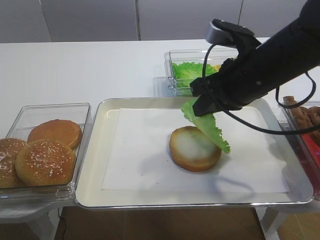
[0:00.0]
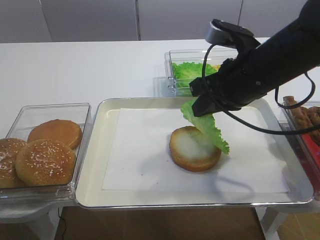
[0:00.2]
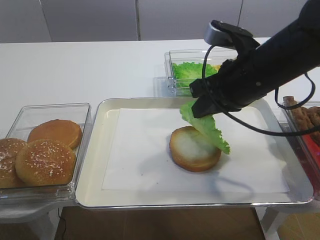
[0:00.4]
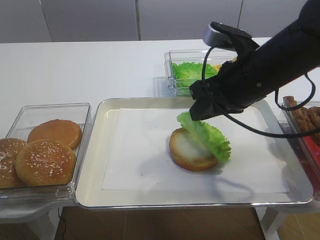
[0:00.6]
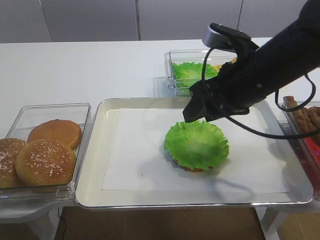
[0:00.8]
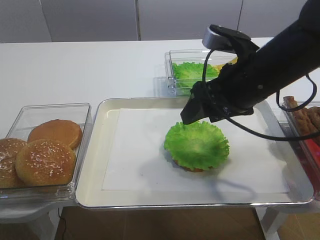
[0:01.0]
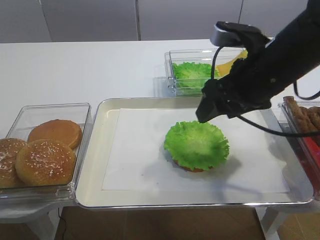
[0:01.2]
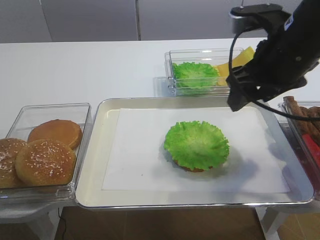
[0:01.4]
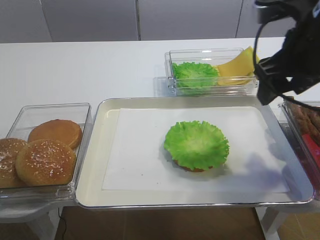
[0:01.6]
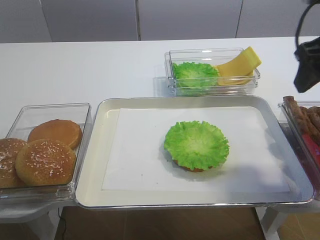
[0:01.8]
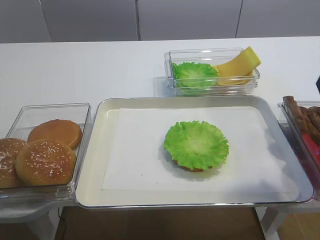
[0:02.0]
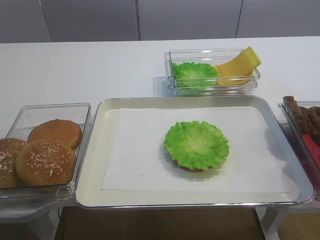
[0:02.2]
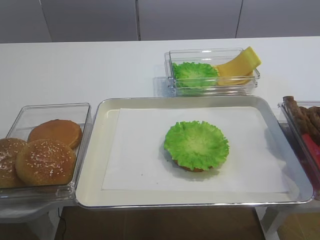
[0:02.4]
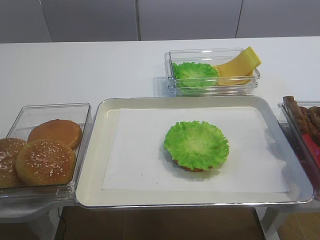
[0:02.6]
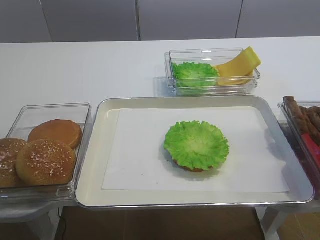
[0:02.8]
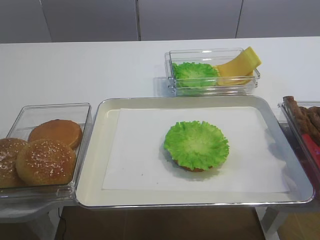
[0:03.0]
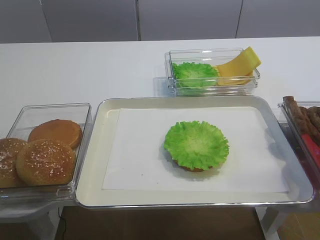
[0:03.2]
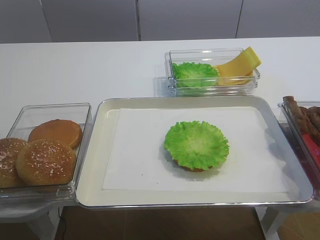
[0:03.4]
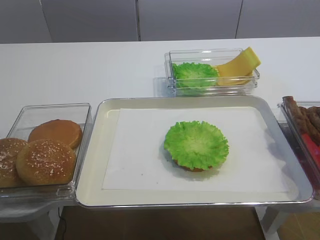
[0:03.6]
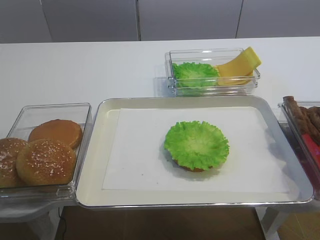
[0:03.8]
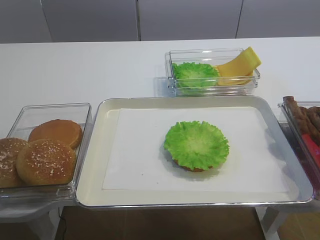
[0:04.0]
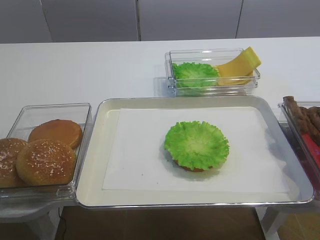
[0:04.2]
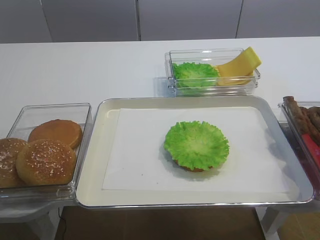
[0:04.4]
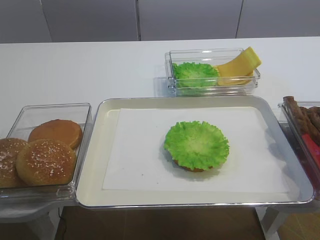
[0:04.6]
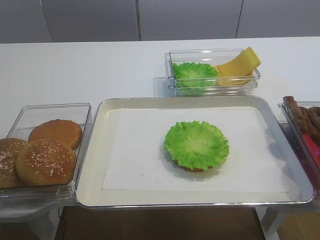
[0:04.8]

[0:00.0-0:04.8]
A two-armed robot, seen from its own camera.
0.0 to 1.6 s: The right gripper shifts about 10 cm to the right and upward, and opens.
1.6 to 3.2 s: The right gripper moves backward, about 25 cm.

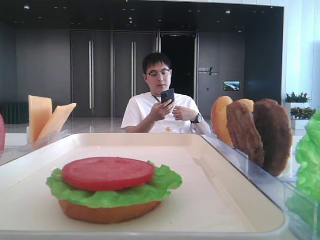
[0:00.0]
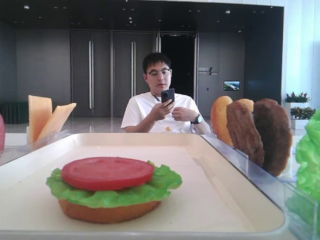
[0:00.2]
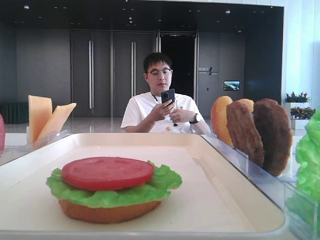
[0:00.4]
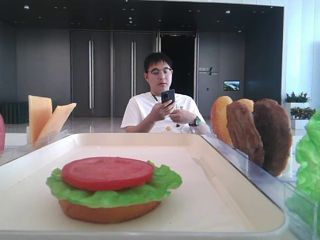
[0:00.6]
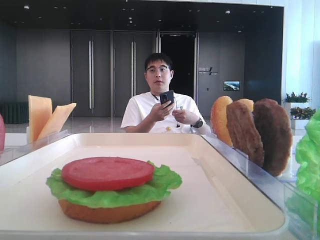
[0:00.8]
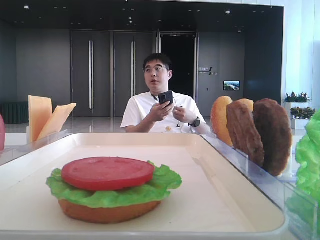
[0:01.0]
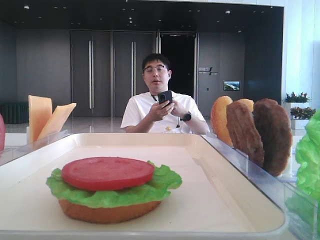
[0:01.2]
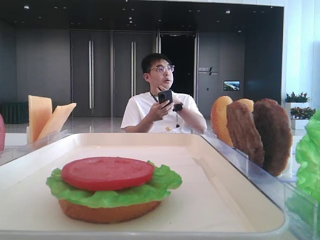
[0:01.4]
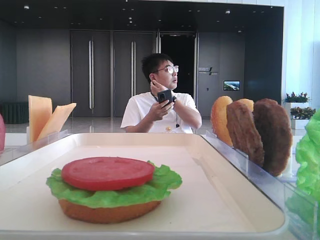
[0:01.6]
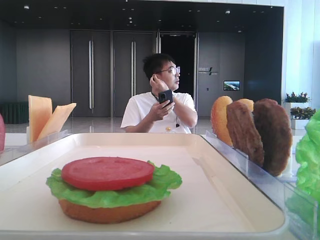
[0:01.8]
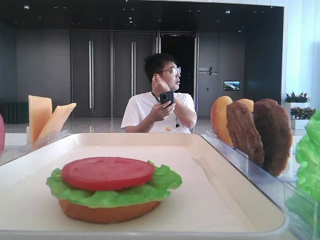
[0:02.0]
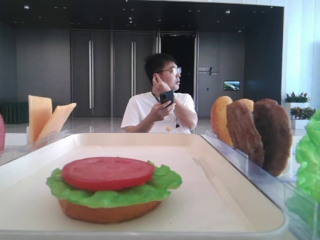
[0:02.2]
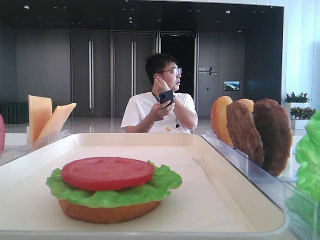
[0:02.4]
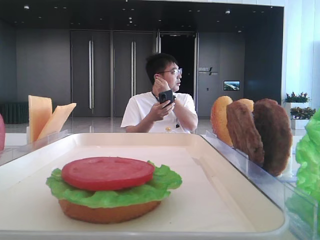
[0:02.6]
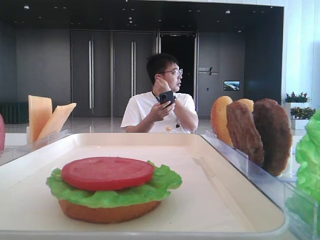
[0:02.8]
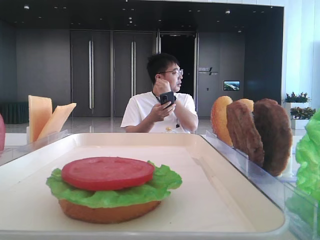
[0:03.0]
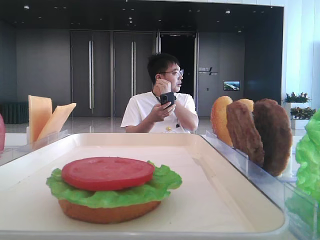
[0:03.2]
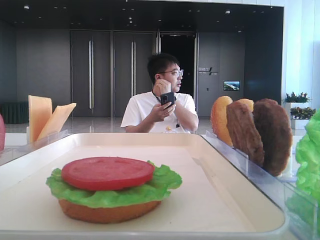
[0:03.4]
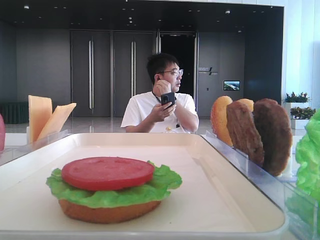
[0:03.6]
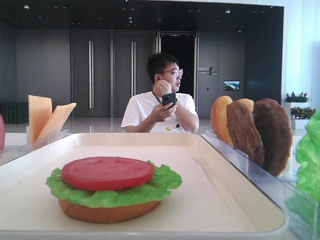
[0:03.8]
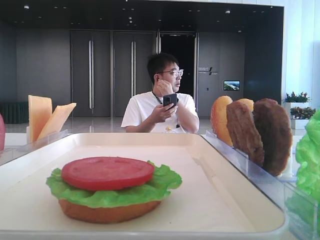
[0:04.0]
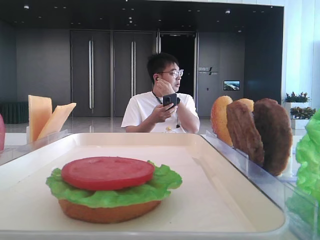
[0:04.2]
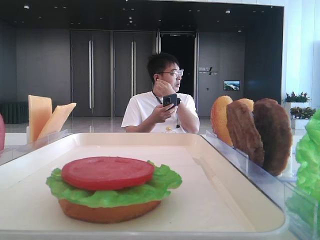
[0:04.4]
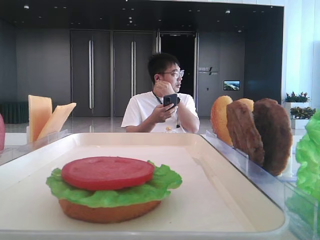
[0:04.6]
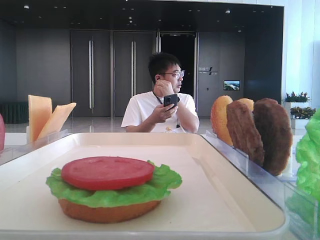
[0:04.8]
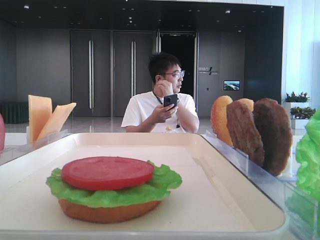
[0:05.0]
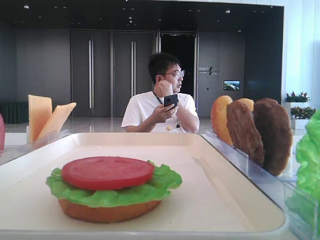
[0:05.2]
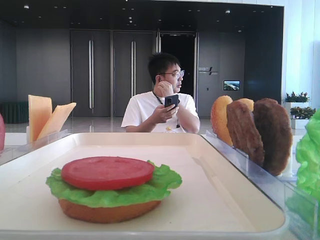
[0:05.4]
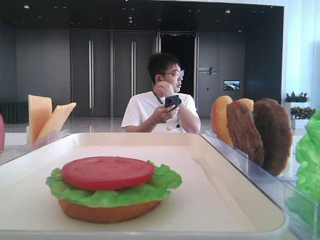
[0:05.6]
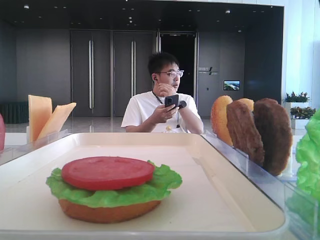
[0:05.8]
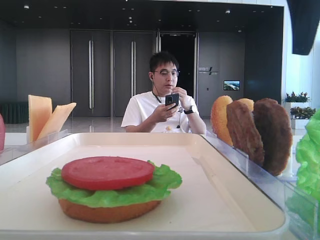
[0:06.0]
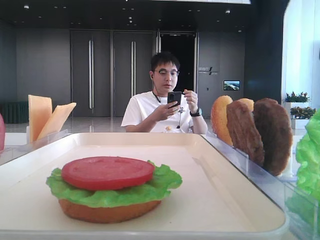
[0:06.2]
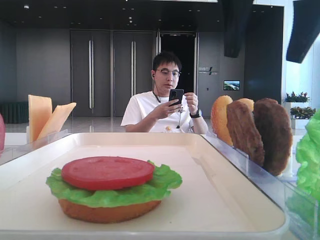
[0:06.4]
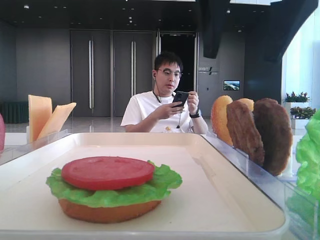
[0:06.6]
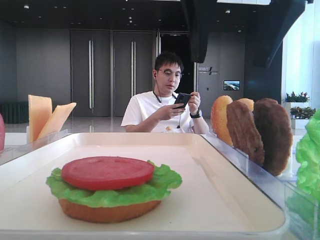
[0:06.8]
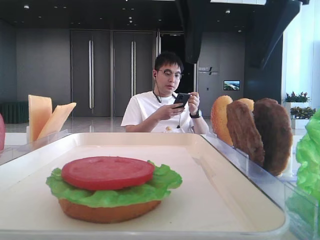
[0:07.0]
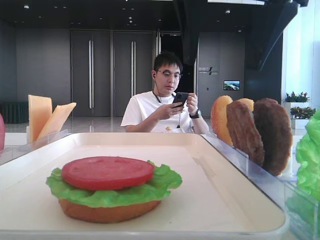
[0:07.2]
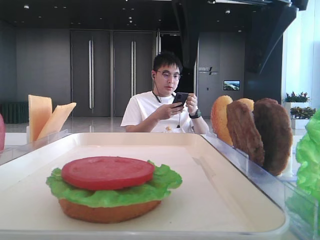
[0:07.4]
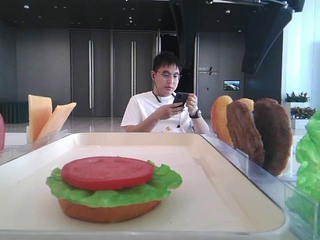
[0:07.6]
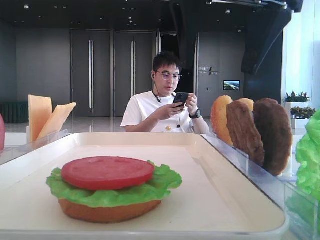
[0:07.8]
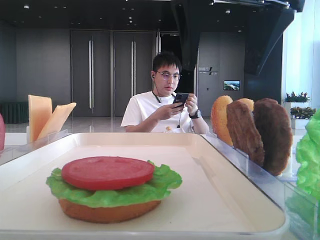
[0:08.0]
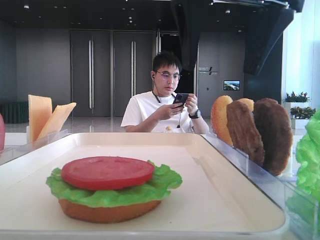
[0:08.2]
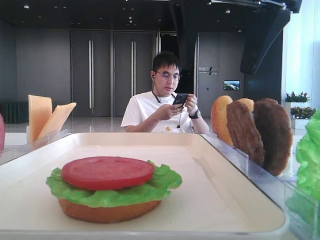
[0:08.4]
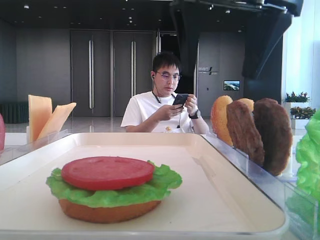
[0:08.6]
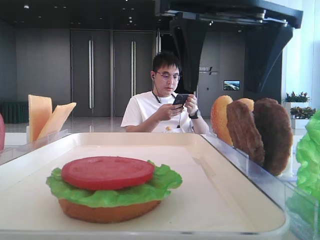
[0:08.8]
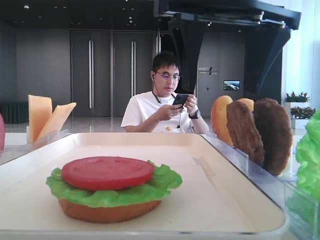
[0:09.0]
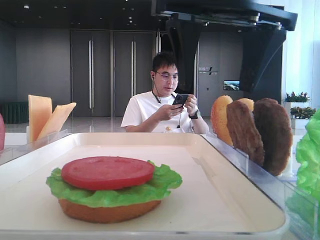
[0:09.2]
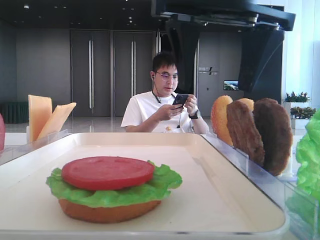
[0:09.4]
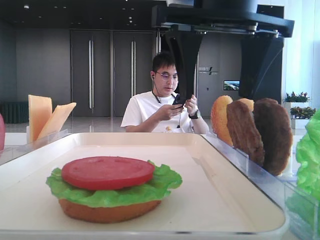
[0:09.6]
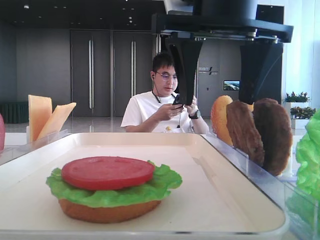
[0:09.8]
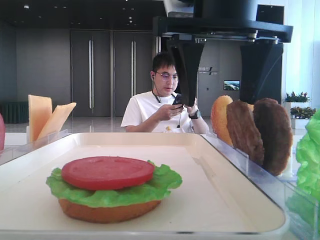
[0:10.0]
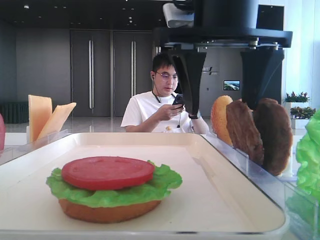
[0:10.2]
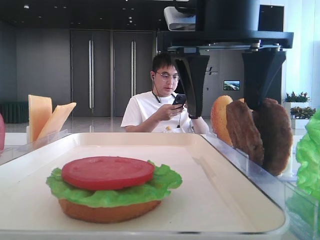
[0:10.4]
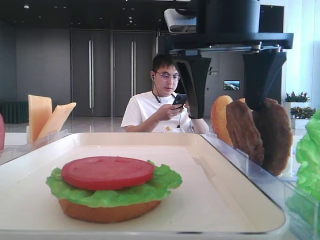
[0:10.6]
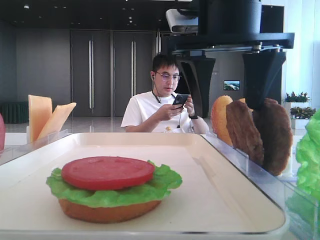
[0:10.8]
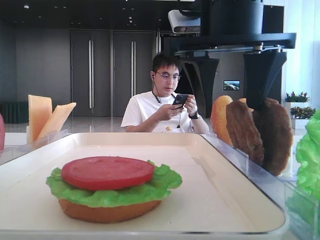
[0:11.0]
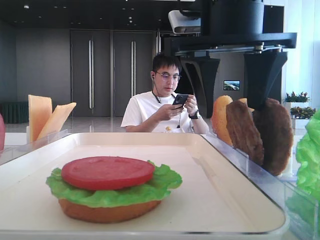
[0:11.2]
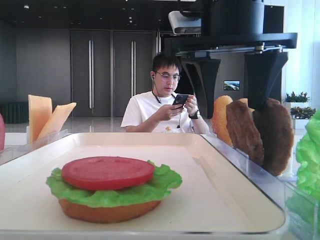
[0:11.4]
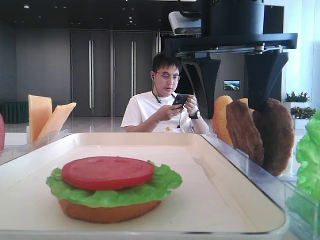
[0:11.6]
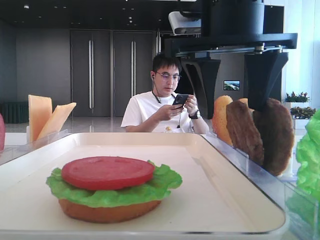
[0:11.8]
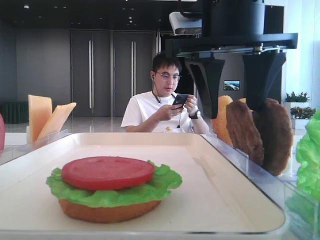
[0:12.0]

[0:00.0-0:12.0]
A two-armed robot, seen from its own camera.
1.6 to 3.0 s: The two grippers keep their place.
3.0 to 4.4 s: The right gripper shifts some 20 cm forward.
4.4 to 6.0 s: The right gripper moves to the left and forward, about 10 cm.
6.0 to 7.6 s: The right gripper shifts about 10 cm to the left.
7.6 to 10.4 s: The grippers move only a little.
10.4 to 12.0 s: The two grippers keep their place.

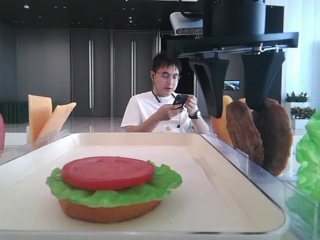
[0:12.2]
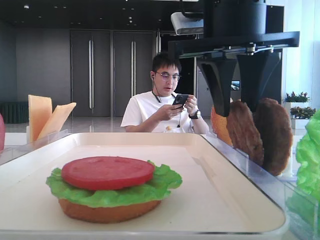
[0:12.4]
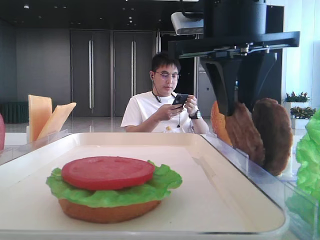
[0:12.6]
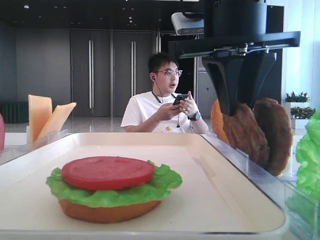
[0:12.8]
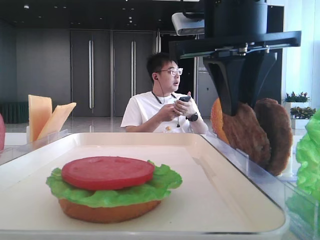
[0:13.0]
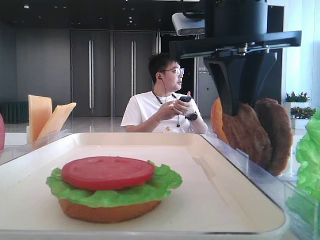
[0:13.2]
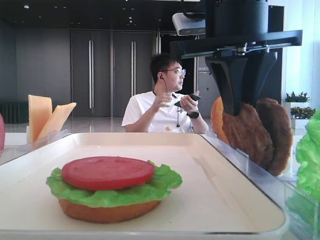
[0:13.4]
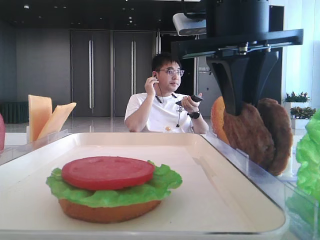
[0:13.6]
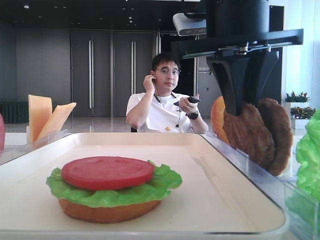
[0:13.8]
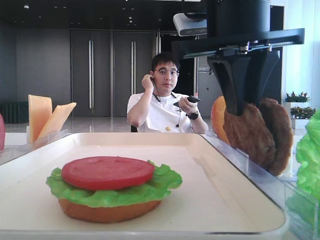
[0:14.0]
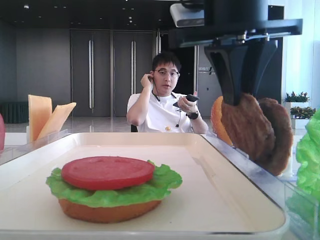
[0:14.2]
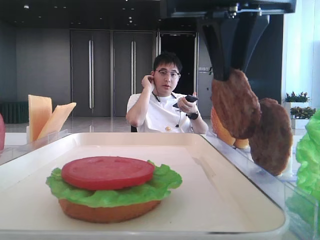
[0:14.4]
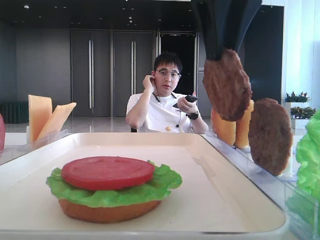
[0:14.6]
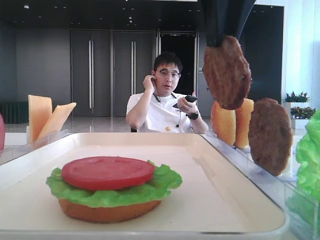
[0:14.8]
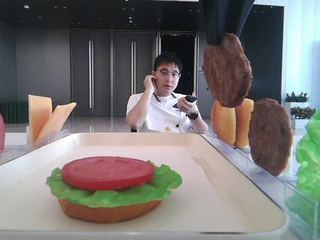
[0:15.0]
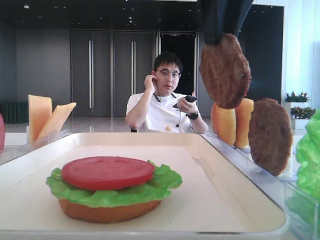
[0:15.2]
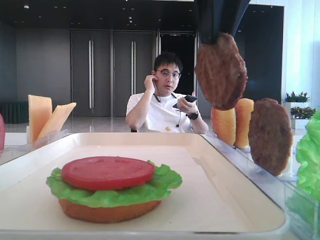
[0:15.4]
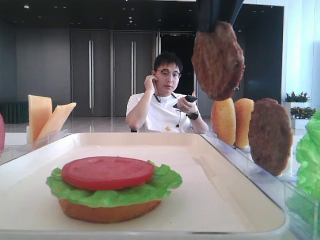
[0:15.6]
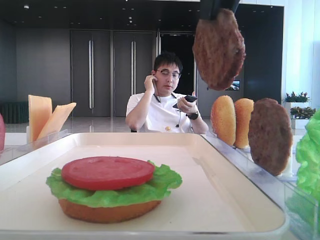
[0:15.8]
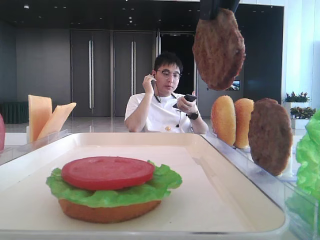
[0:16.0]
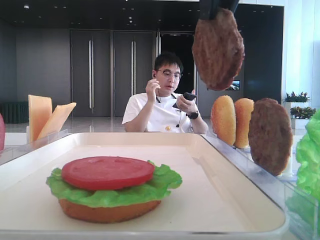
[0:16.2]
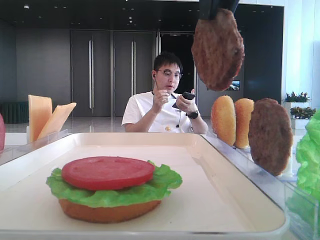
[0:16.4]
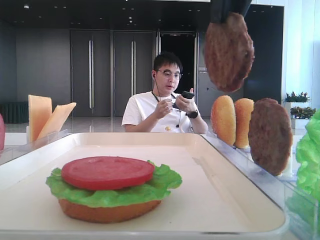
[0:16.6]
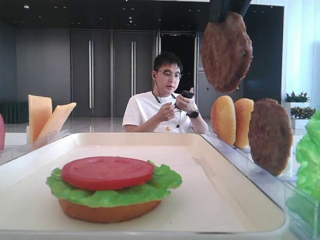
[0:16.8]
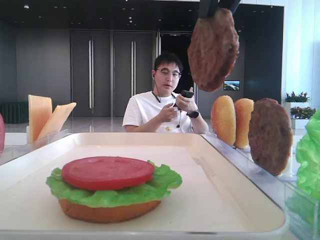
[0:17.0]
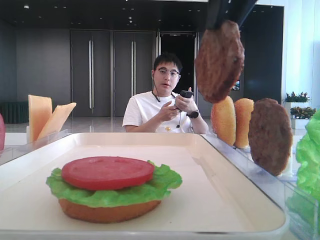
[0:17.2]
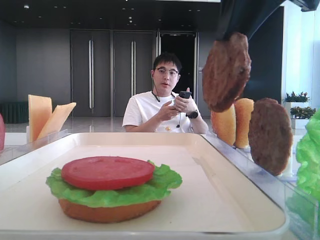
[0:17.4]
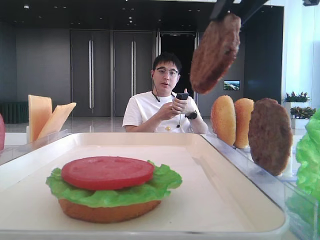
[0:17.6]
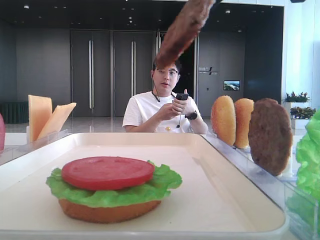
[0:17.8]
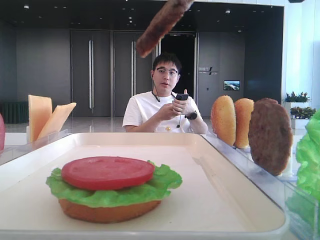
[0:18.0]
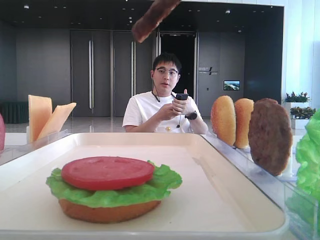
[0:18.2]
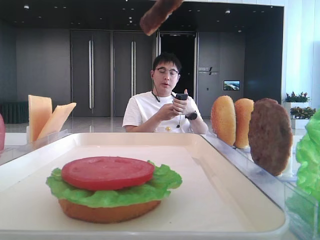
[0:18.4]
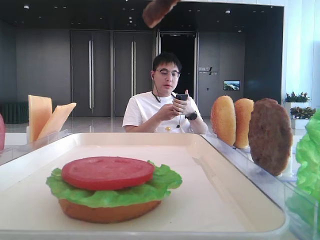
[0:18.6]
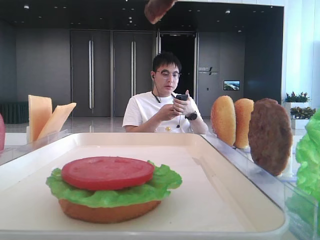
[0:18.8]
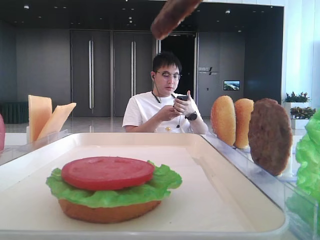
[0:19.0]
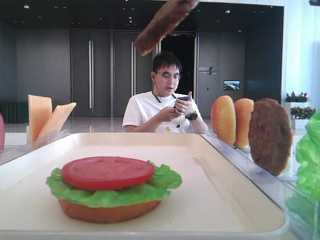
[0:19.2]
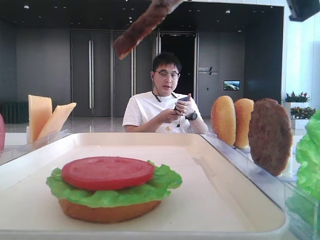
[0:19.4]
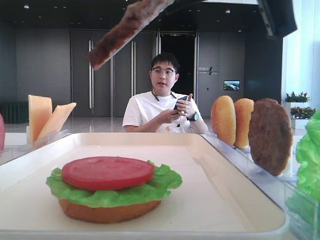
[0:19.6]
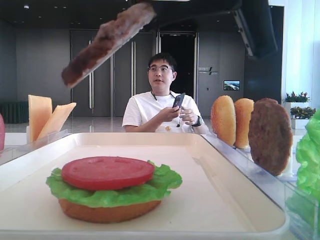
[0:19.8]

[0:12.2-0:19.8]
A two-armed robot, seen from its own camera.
12.2 to 13.8 s: The right gripper closes up.
13.8 to 15.2 s: The right gripper travels upward by approximately 10 cm.
15.2 to 16.8 s: There are only small adjustments of the grippers.
16.8 to 18.2 s: The right gripper moves backward, about 5 cm.
18.2 to 19.8 s: The right gripper shifts roughly 5 cm downward.
